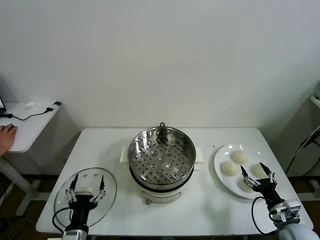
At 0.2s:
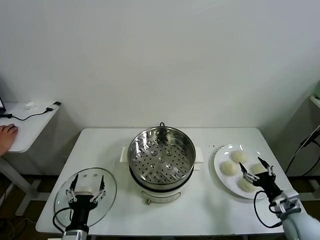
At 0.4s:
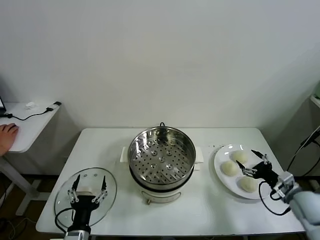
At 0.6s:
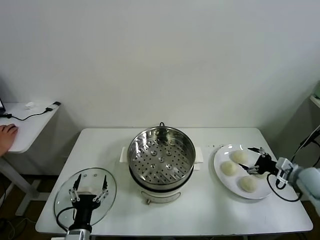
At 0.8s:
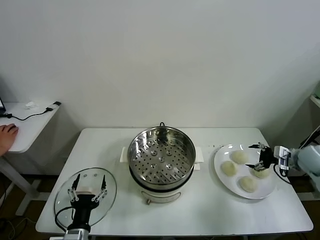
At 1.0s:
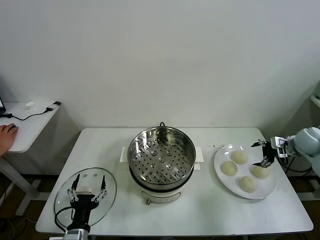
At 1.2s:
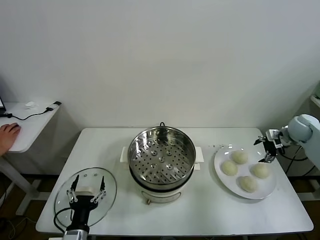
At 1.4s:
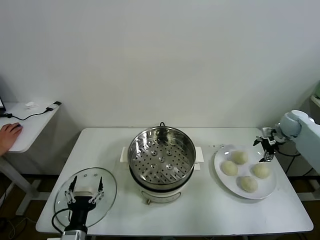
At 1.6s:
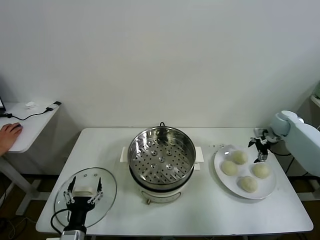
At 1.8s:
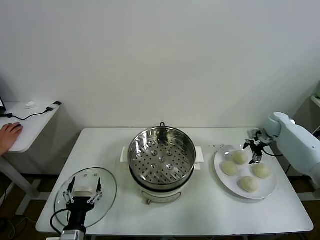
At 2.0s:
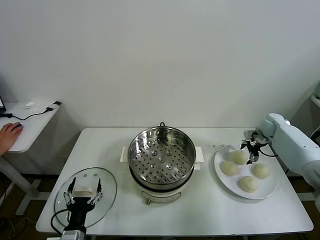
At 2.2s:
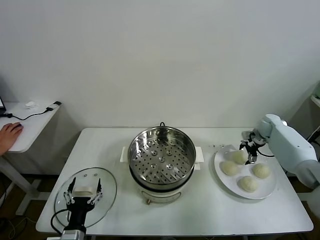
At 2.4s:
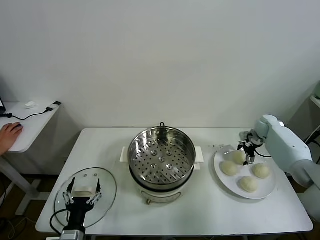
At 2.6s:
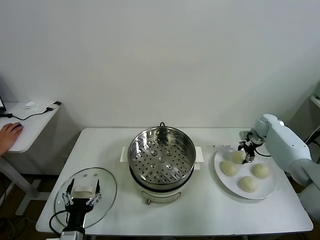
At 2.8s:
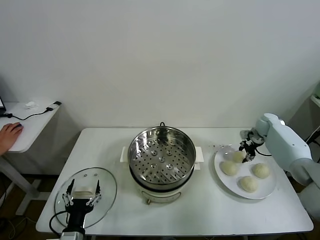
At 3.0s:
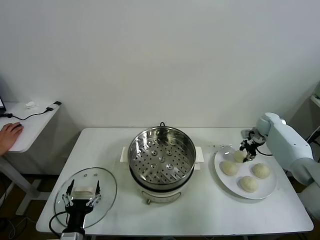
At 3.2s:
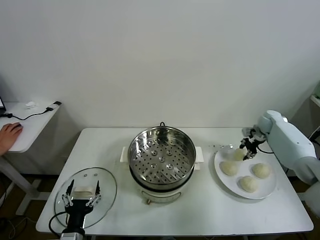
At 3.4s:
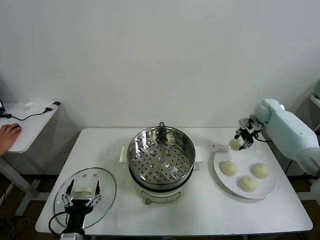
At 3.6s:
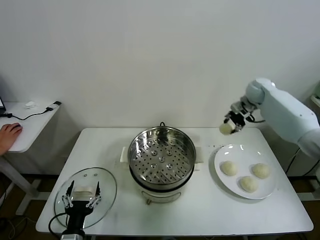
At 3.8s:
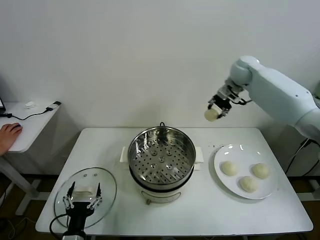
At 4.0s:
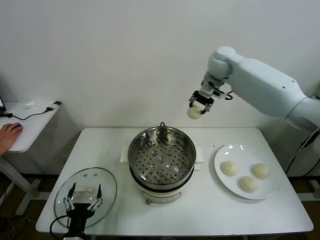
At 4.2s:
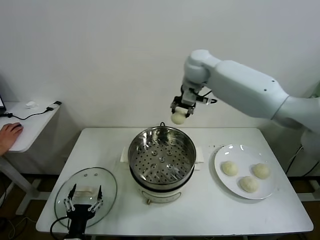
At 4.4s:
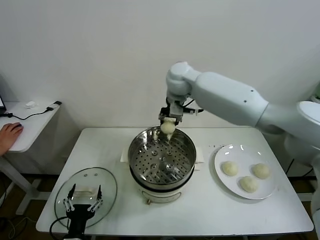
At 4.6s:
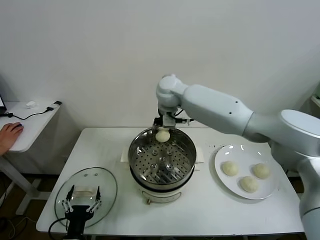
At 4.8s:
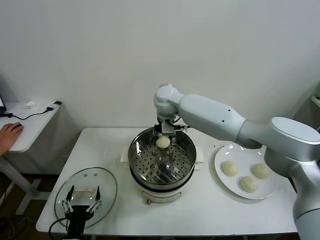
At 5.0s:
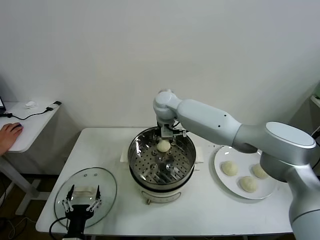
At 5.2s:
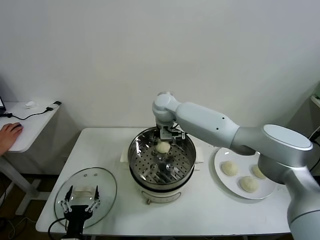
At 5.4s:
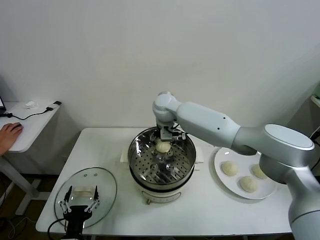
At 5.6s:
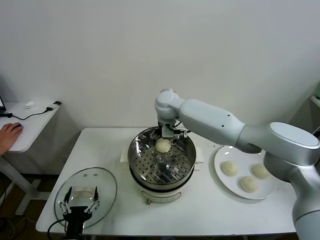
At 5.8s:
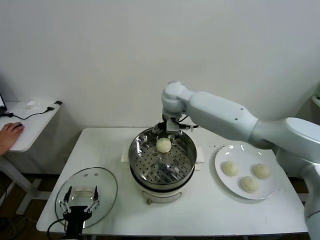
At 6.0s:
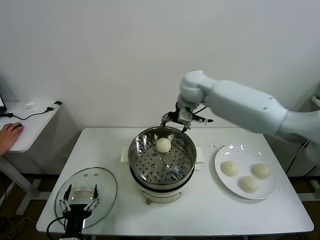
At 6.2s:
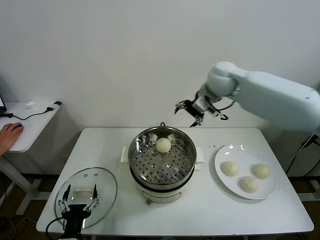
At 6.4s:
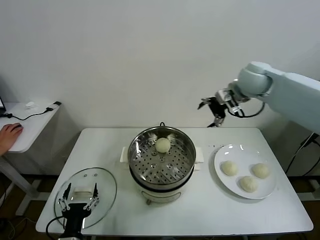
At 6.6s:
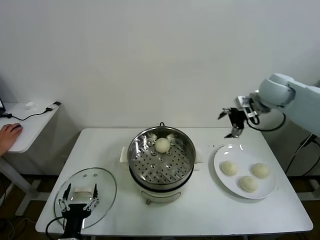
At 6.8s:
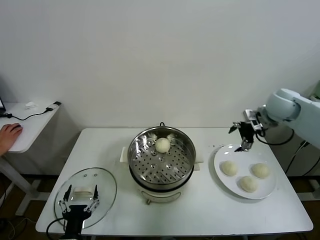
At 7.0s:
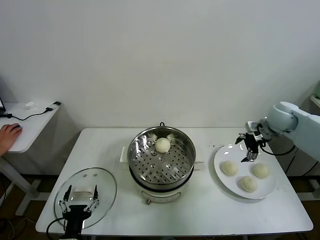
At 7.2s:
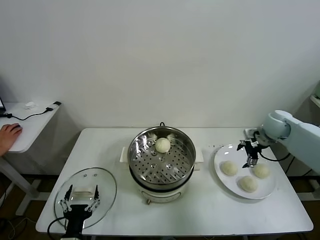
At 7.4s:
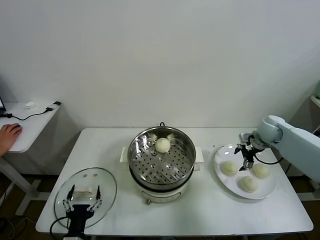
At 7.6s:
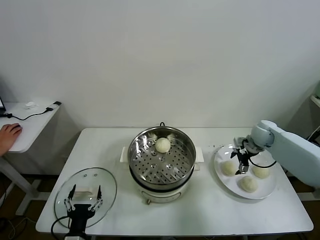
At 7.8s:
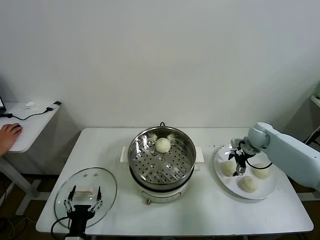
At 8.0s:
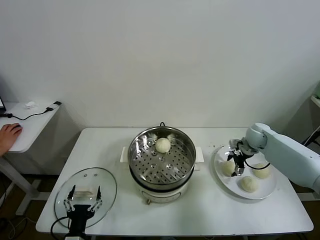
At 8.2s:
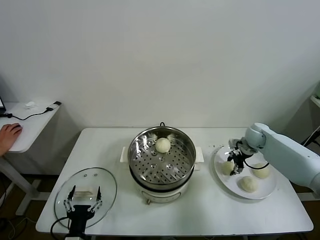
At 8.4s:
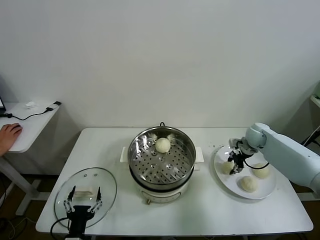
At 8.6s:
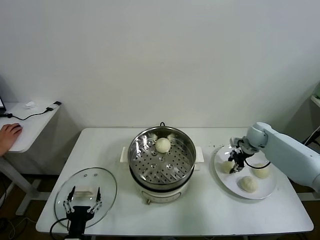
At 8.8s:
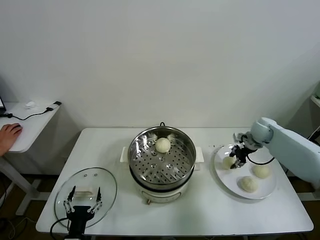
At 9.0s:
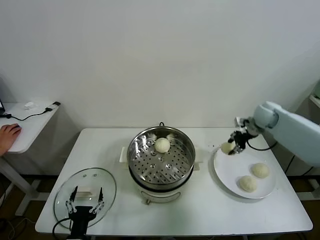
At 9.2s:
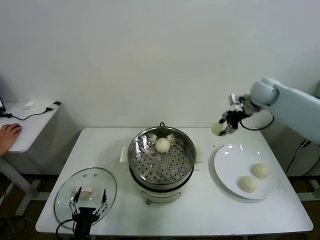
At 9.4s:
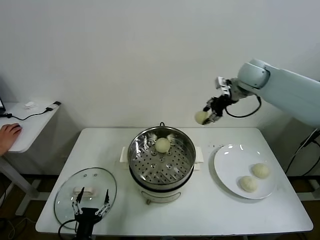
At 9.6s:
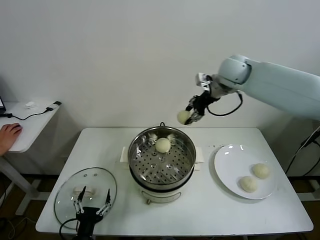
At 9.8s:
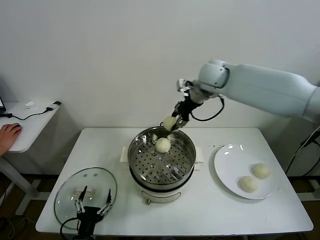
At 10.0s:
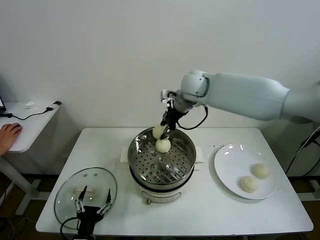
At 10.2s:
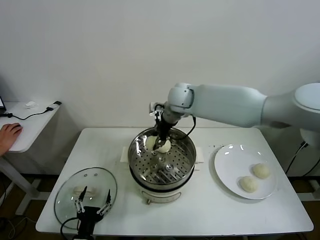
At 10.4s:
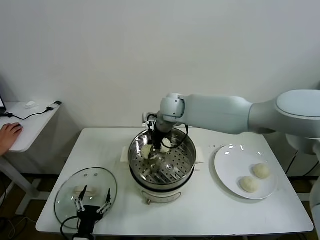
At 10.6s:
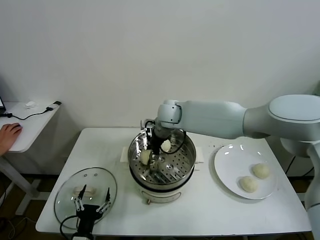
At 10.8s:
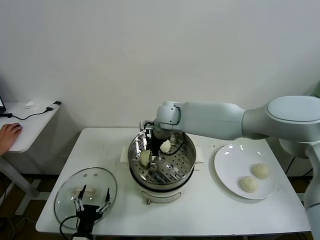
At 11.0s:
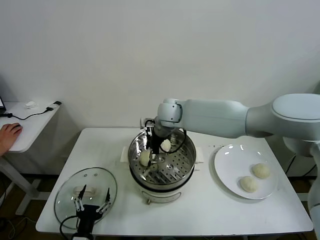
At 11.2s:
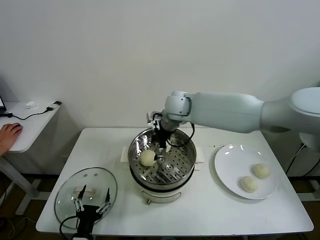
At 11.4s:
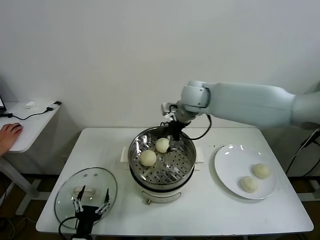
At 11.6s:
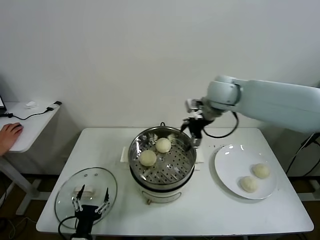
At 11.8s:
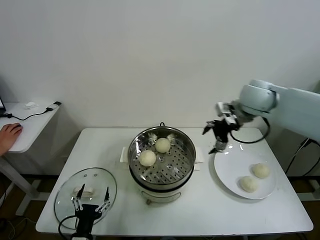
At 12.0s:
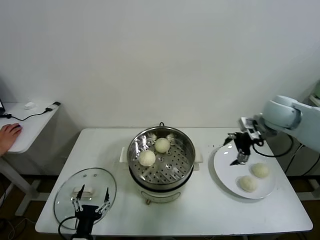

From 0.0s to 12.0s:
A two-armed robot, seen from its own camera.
Task of the whole recording: take steamed baozi put them in steamer.
Step, from 0.0s to 2.6s: Grasp the baozi in the plate with right gripper.
Step, from 2.8s to 5.4s: Place the baozi on the steamer with right gripper.
Step, from 5.6s to 8.2s: Grasp the baozi in the plate with right gripper.
Step, from 8.4s to 11.0s: Place the baozi on the steamer with right gripper.
From 1.6s to 3.0s: The right gripper closes up.
From 3.0s to 4.4s: The right gripper shifts roughly 50 cm to the left and upward.
From 4.4s to 6.0s: The right gripper shifts roughly 15 cm to the right, and opens its fingers.
From 6.0s to 7.6s: The right gripper goes about 30 cm downward and to the right.
From 7.6s to 9.0s: The right gripper moves upward, approximately 15 cm, and closes.
From 9.0s to 10.4s: The right gripper is displaced to the left by about 35 cm.
From 10.4s to 12.0s: The right gripper moves to the right, about 35 cm, and opens up.

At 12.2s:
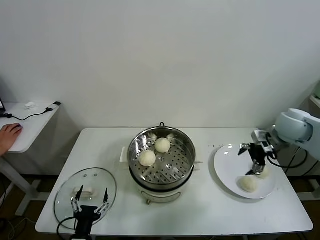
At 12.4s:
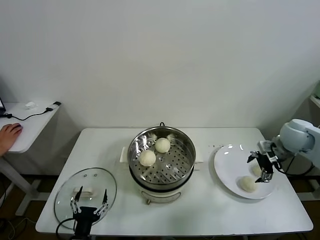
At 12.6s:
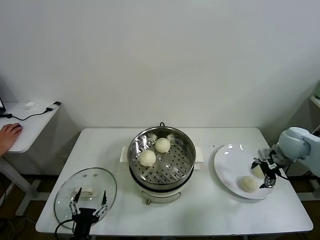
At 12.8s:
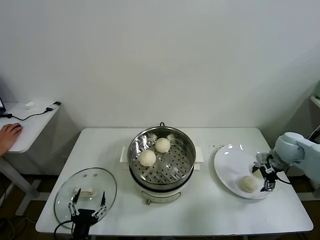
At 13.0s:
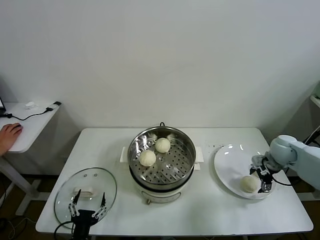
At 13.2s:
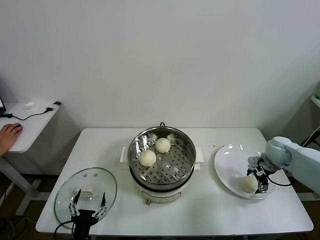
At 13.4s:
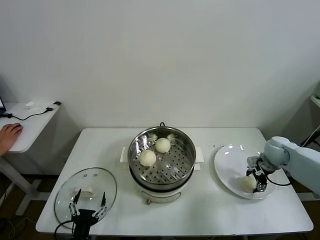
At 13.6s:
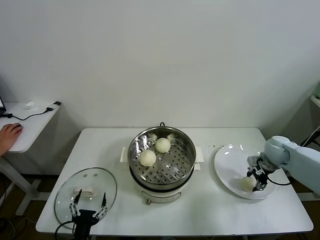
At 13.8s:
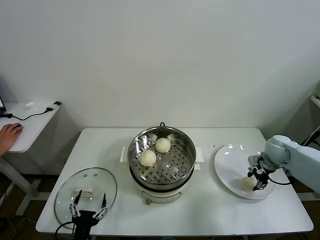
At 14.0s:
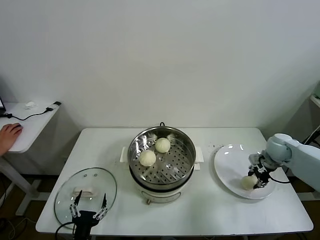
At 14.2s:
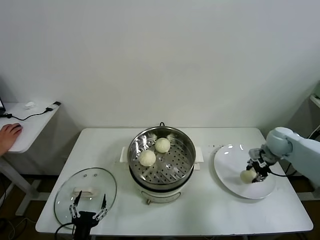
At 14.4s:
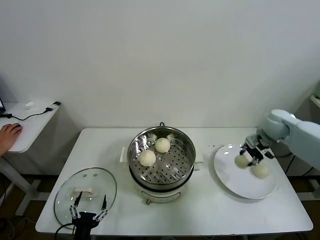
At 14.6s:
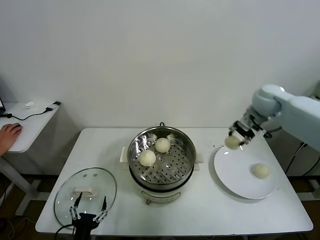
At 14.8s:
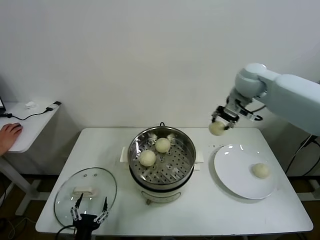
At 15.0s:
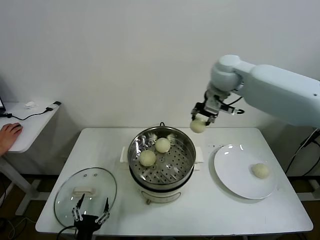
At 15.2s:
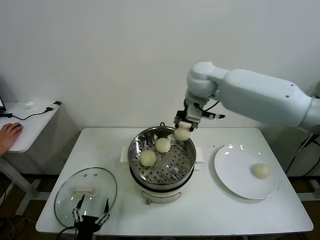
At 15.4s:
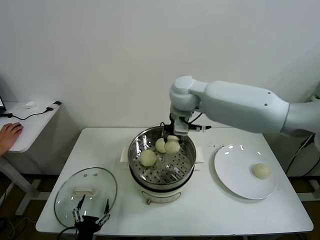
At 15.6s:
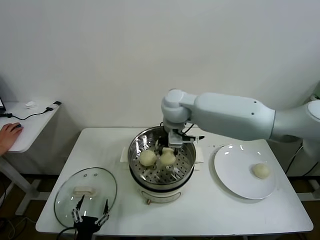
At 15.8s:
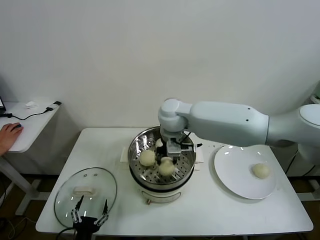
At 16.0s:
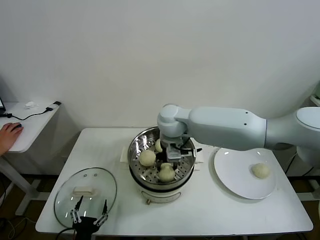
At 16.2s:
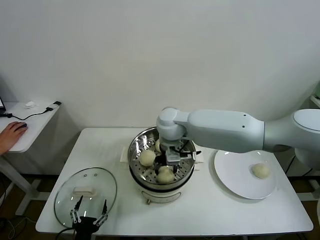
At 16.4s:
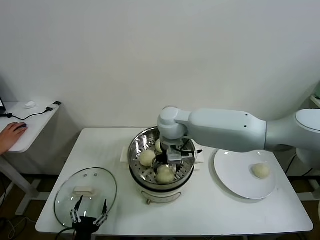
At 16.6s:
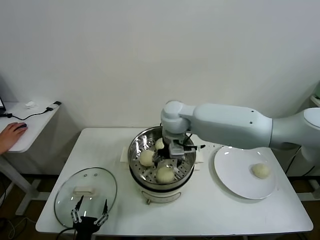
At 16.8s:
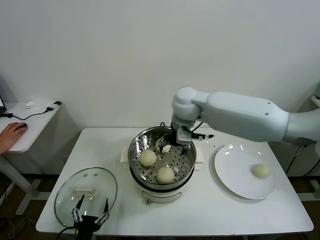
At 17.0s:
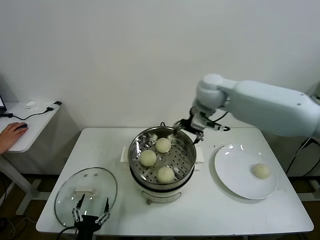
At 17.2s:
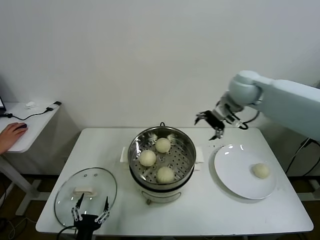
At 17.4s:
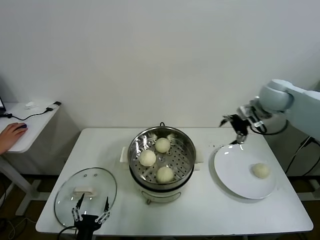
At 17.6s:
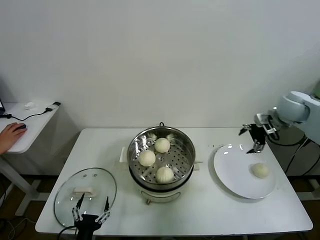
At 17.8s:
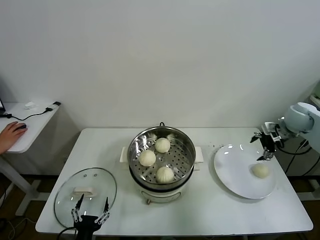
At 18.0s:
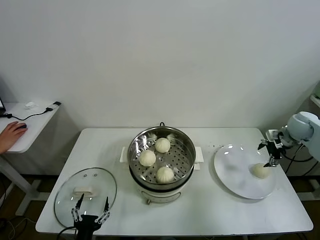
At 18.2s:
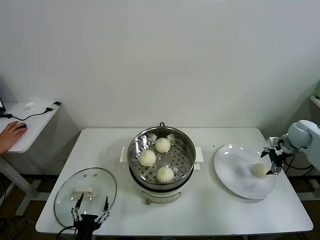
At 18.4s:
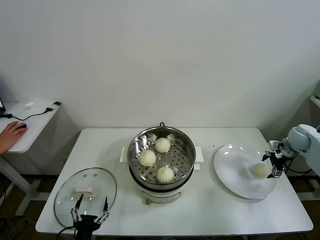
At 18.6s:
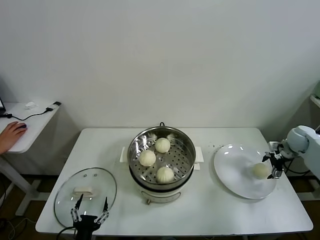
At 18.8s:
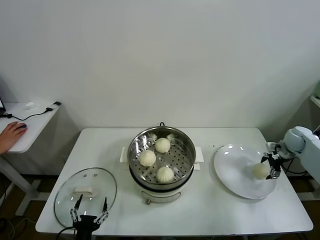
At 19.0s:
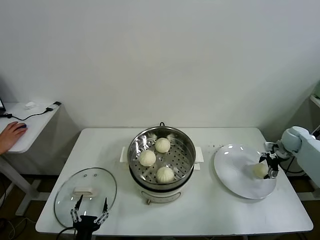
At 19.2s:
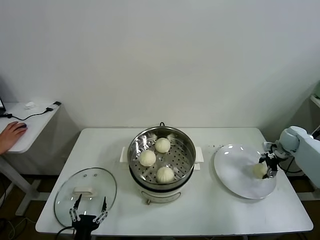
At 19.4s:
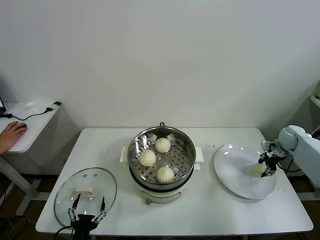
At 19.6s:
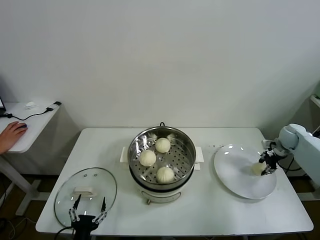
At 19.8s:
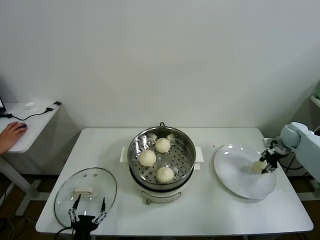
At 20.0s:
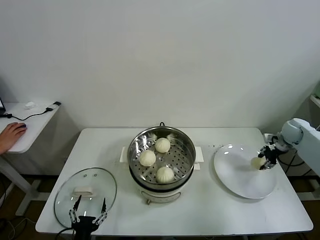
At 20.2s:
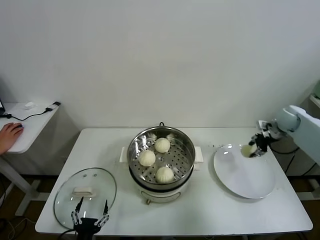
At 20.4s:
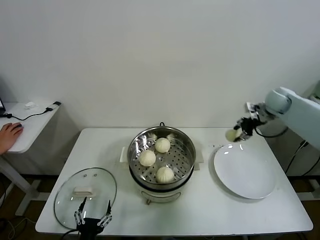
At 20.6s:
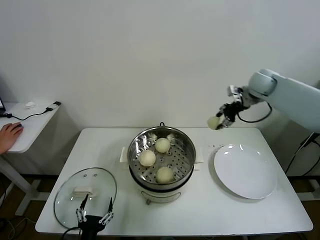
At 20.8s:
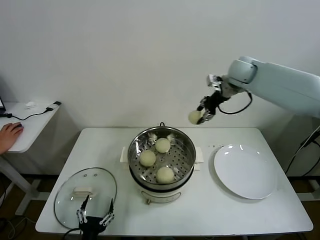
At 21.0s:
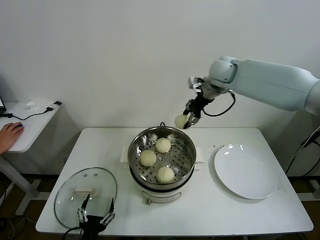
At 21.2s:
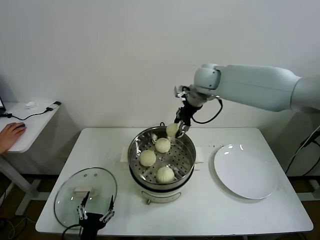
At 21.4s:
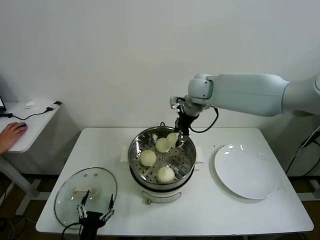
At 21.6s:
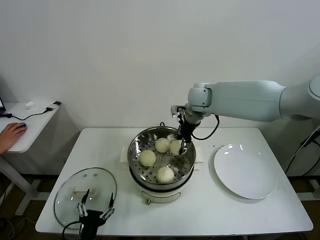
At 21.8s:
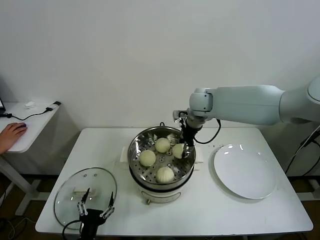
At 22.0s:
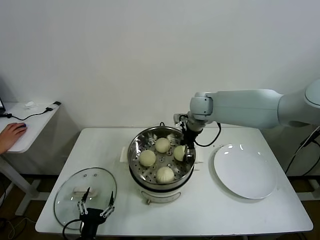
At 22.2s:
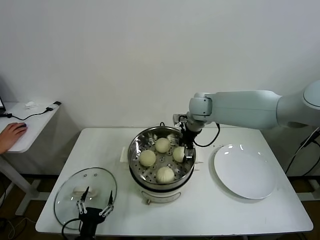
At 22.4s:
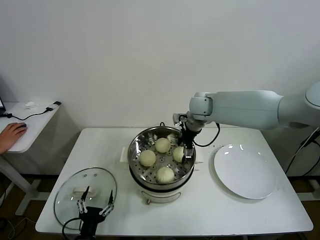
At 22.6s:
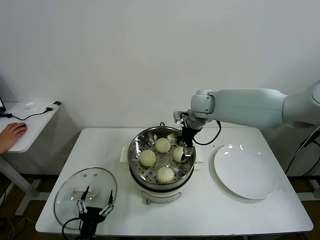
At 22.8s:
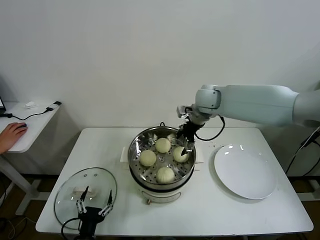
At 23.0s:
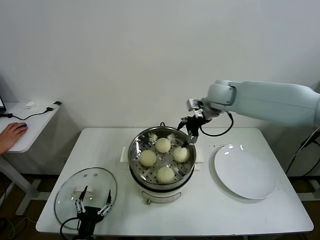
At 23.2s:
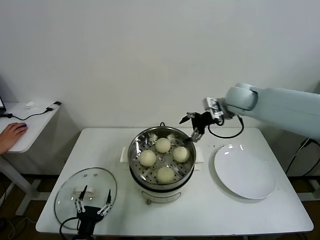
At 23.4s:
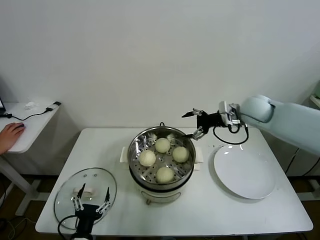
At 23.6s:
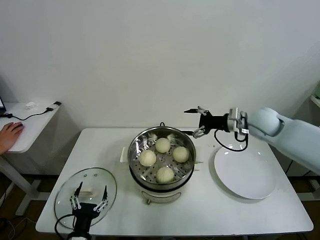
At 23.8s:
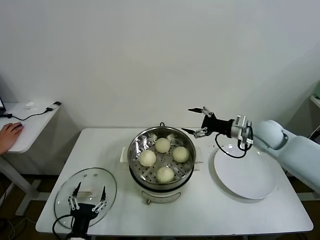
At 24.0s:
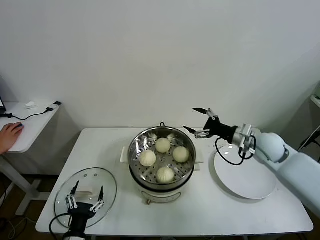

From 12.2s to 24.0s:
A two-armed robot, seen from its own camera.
Task of the whole recording: take steamed baozi put them in steamer.
Step, from 12.2s to 13.4s: Grasp the baozi in the plate with right gripper.
Step, from 13.6s to 16.4s: Place the baozi on the steamer with right gripper.
Step, from 16.6s to 19.4s: Grasp the baozi in the plate with right gripper.
Step, from 19.6s to 22.4s: Place the baozi on the steamer with right gripper.
From 12.2s to 13.6s: The right gripper is displaced downward by approximately 10 cm, and closes its fingers.
From 13.6s to 15.2s: The right gripper goes some 40 cm to the left and upward.
From 15.2s to 16.6s: The right gripper heads downward, covering some 5 cm, and opens its fingers.
From 16.6s to 18.2s: The right gripper heads to the right, covering roughly 50 cm.
From 18.2s to 19.6s: The right gripper closes up.
From 19.6s to 21.0s: The right gripper is displaced to the left and upward by some 40 cm.
From 21.0s to 22.6s: The right gripper shifts about 10 cm downward, and opens.
From 22.6s to 24.0s: The right gripper goes some 25 cm to the right, backward and downward.
